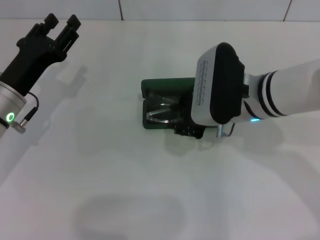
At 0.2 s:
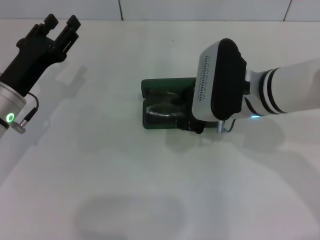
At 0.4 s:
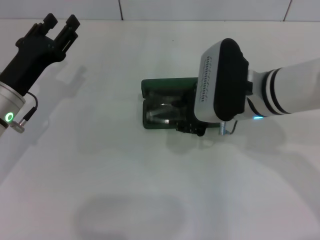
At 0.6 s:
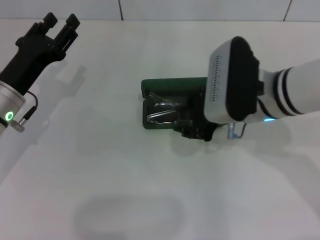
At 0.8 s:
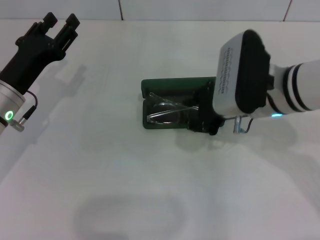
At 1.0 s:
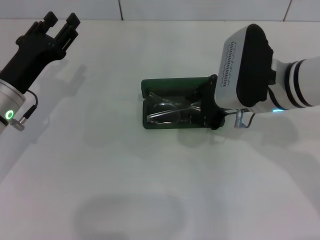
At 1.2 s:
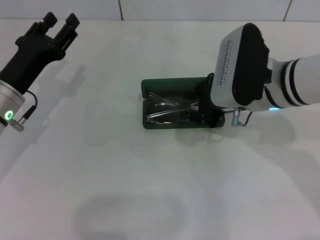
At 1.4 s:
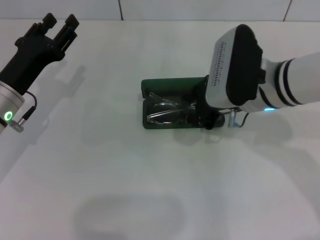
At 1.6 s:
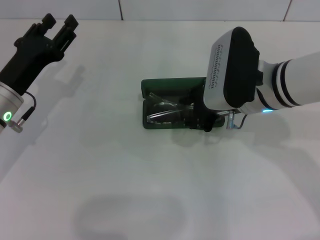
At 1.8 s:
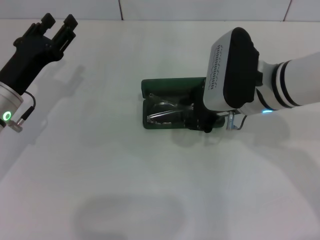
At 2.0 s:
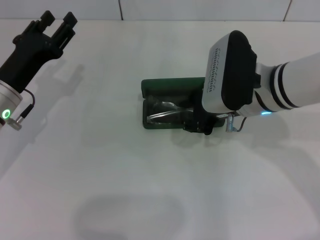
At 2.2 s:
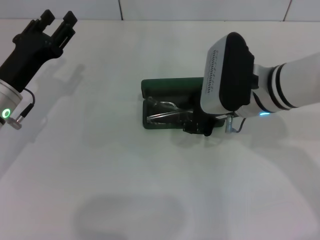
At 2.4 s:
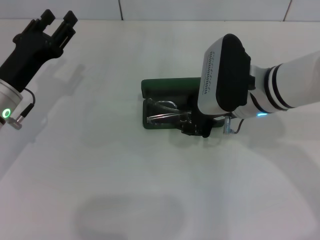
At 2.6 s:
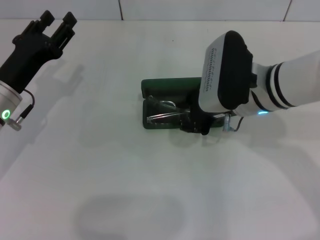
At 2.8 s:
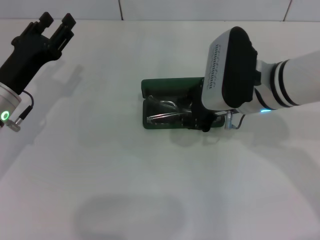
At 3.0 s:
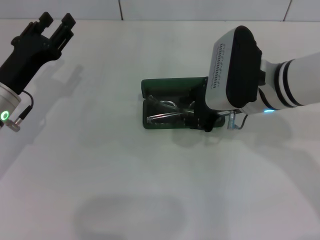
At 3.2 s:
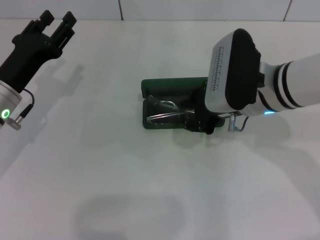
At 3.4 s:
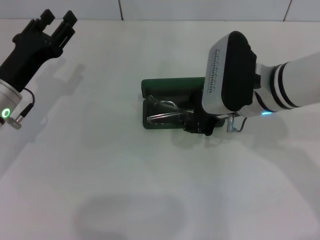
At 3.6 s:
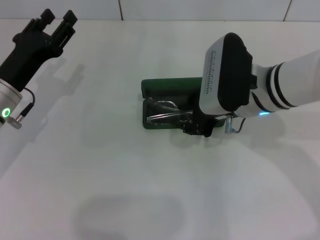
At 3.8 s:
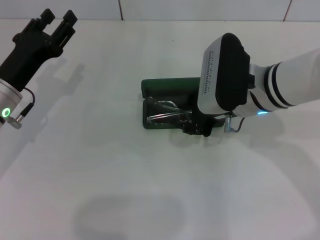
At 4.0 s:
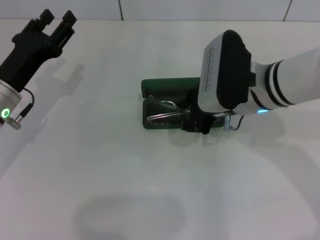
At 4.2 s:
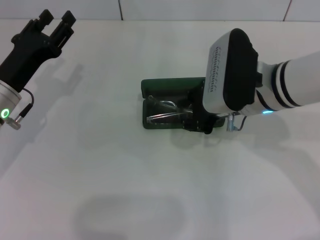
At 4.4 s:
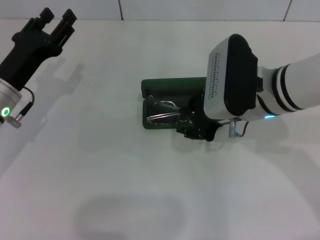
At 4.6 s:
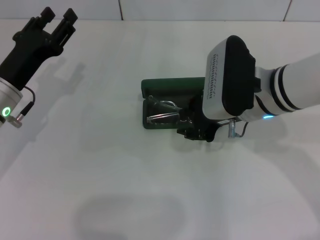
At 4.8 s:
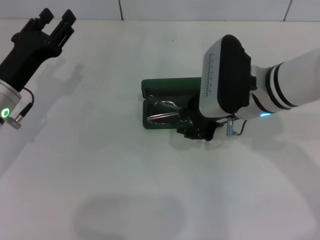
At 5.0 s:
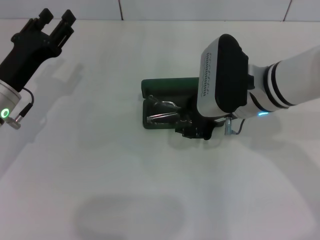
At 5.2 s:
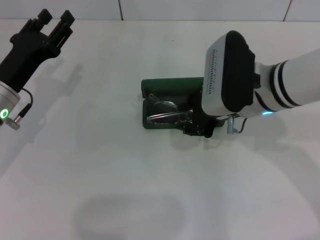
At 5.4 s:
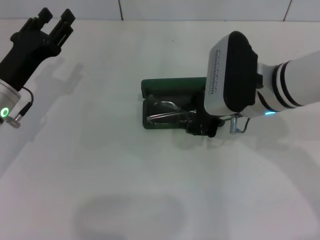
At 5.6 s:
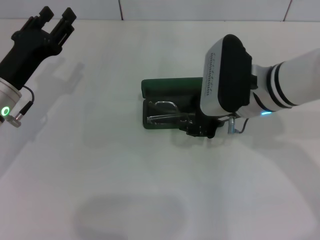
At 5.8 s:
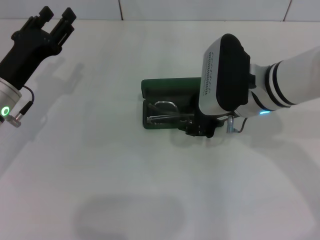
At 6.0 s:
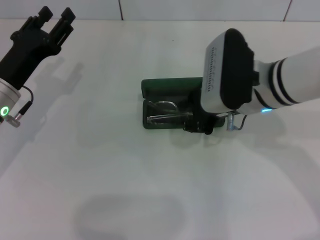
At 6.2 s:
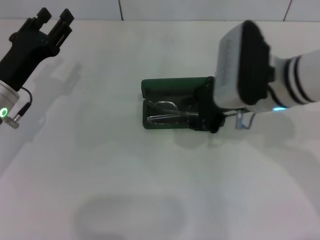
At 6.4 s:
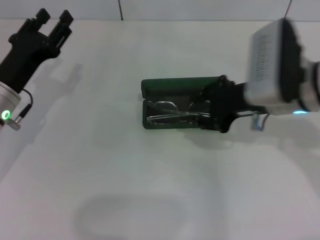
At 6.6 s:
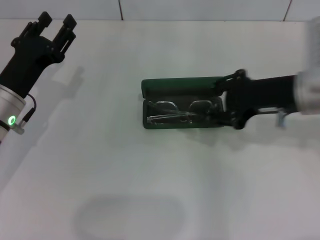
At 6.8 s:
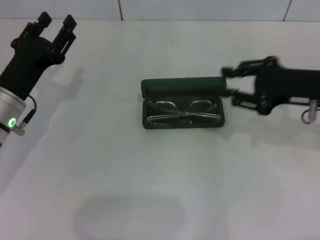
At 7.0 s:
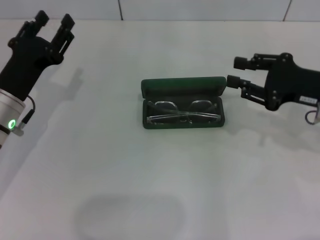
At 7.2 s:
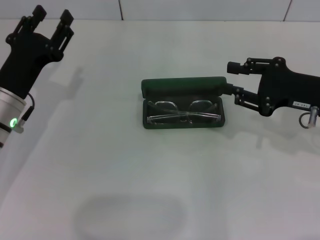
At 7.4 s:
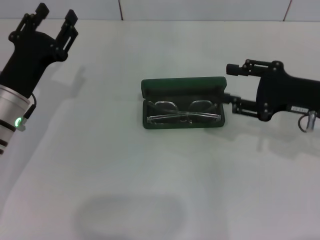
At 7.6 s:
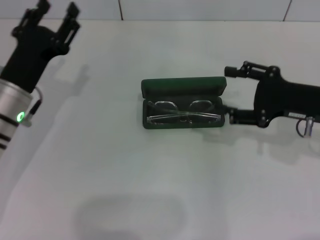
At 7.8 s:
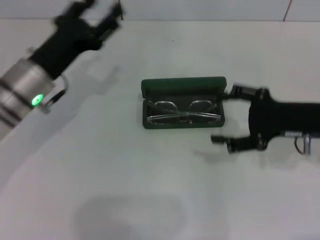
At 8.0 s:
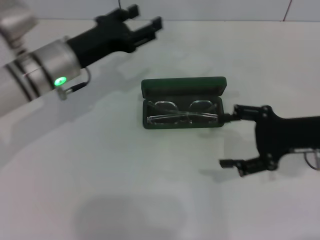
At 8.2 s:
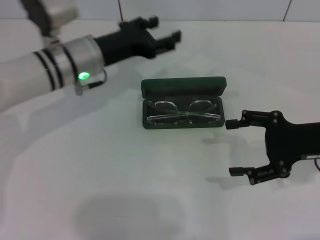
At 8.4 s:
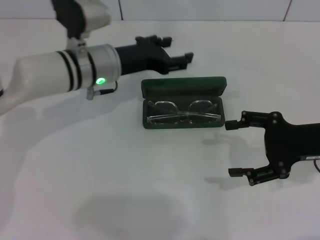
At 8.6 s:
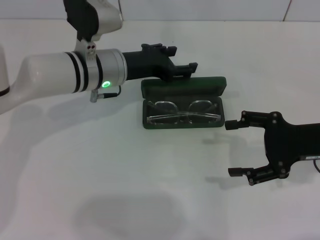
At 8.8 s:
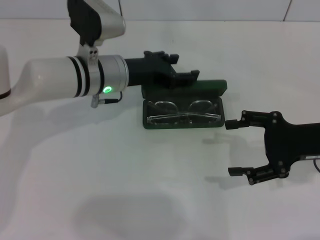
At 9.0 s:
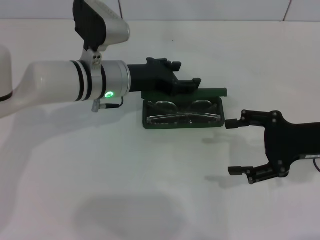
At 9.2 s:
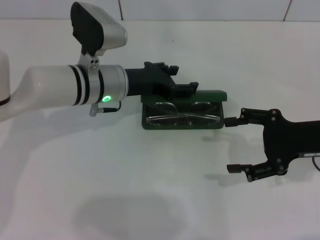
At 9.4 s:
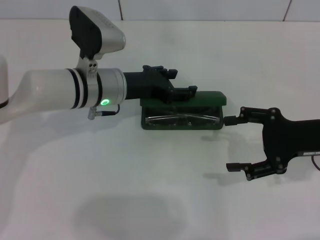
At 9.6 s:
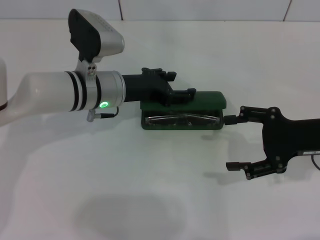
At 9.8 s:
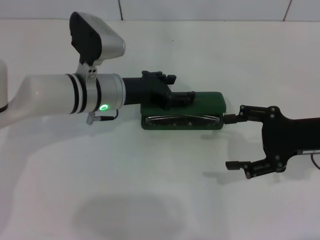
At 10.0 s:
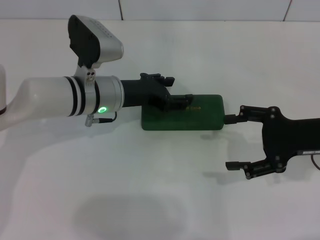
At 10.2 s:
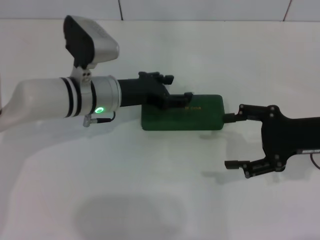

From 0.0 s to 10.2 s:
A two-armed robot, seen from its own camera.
Step, from 0.0 s to 5.8 s: Put the glasses into the case with your right hand.
Step, from 6.0 s to 9.8 s: Close the glasses case with your left hand.
From 0.0 s to 1.4 s: The grippers move only a little.
From 1.4 s to 4.4 s: The two grippers keep their place.
From 4.4 s to 5.8 s: Neither gripper changes place.
From 5.8 s to 7.2 s: The right gripper heads to the right, covering approximately 15 cm.
From 7.2 s to 8.8 s: The left gripper moves to the right and forward, approximately 15 cm; the right gripper opens up.
From 8.8 s to 10.2 s: There are only small adjustments of the grippers.

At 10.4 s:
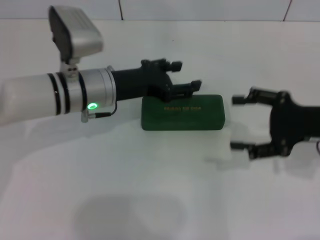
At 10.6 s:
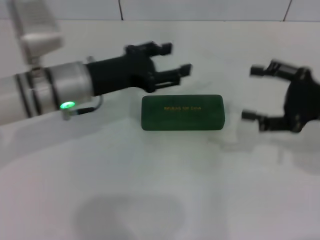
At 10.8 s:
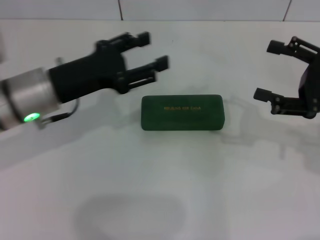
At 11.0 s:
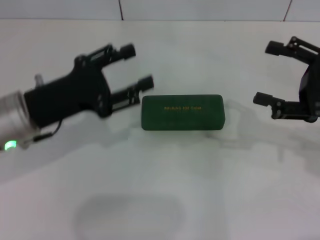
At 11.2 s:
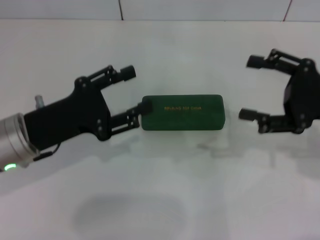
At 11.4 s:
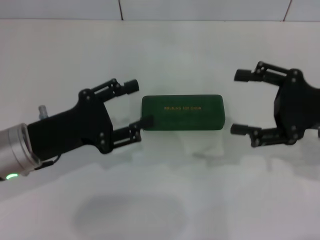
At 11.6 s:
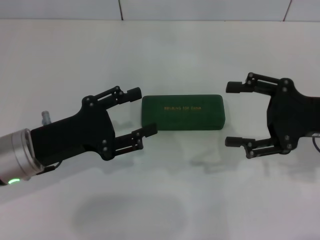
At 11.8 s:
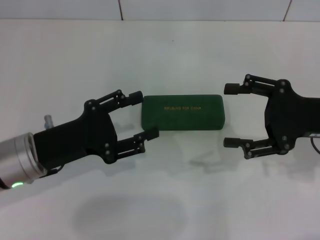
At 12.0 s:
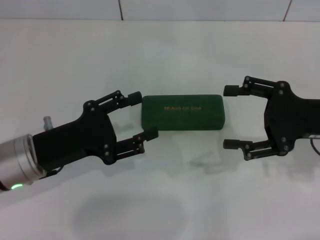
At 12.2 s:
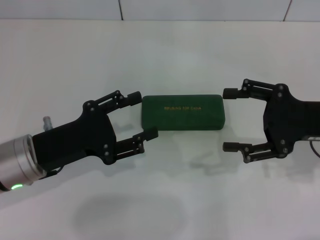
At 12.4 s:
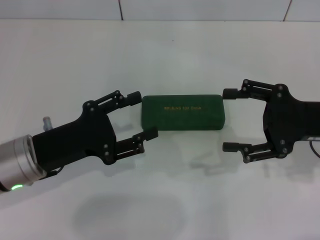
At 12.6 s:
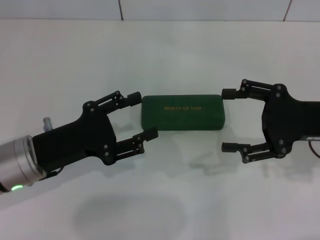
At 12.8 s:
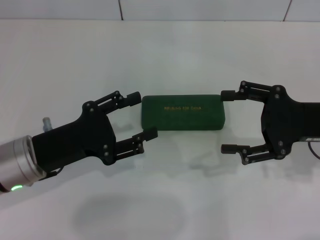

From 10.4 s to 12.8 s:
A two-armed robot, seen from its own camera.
From 10.4 s to 11.6 s: The left gripper is displaced backward and to the left by approximately 15 cm.
From 11.6 s to 12.8 s: The two grippers keep their place.

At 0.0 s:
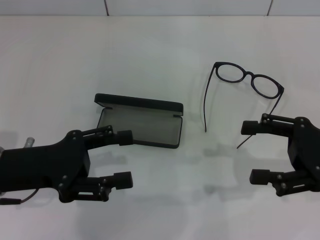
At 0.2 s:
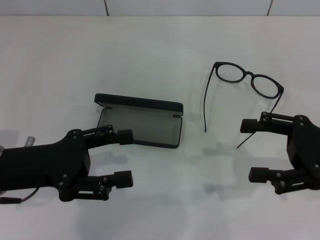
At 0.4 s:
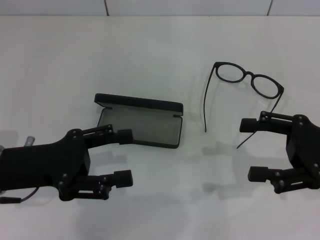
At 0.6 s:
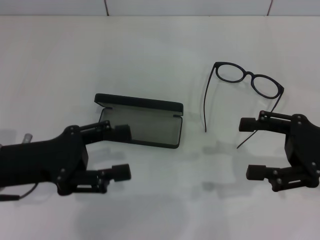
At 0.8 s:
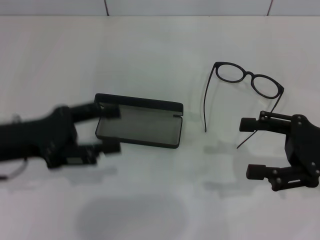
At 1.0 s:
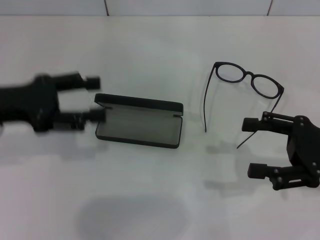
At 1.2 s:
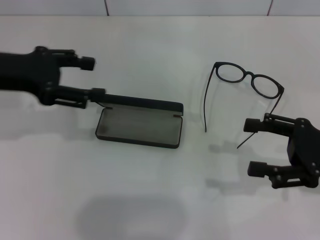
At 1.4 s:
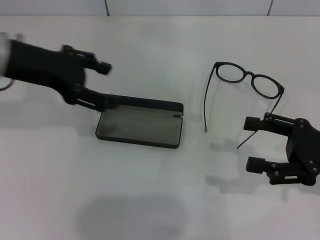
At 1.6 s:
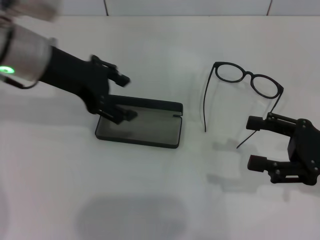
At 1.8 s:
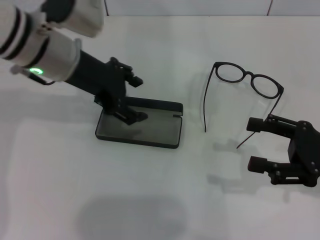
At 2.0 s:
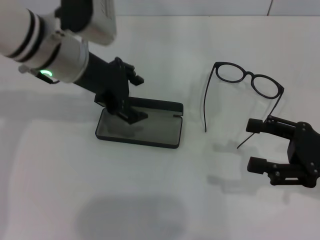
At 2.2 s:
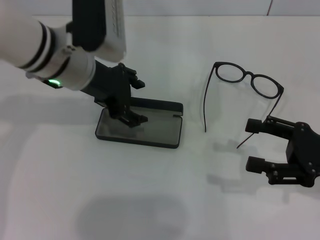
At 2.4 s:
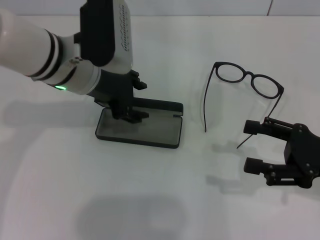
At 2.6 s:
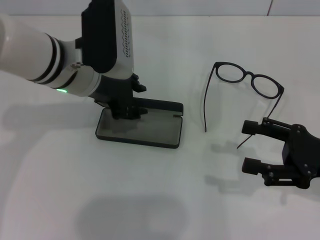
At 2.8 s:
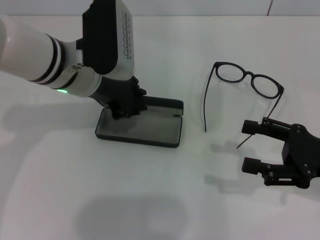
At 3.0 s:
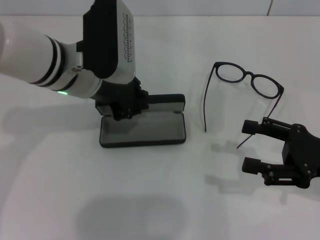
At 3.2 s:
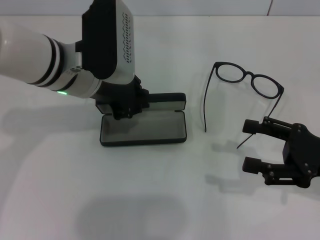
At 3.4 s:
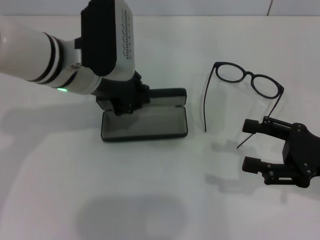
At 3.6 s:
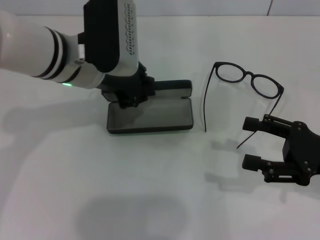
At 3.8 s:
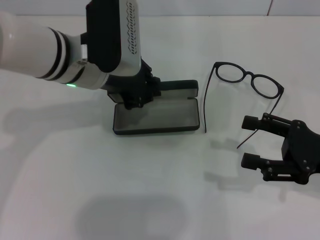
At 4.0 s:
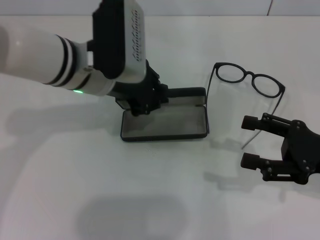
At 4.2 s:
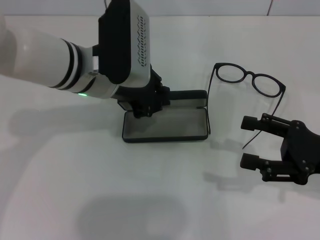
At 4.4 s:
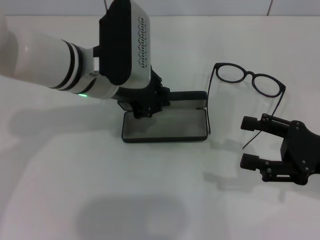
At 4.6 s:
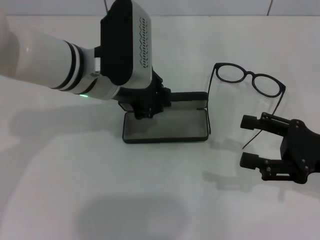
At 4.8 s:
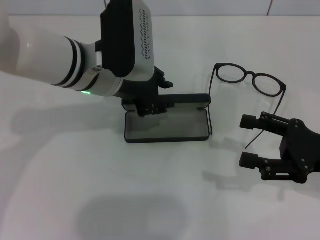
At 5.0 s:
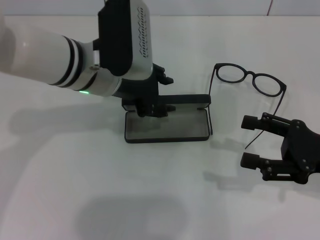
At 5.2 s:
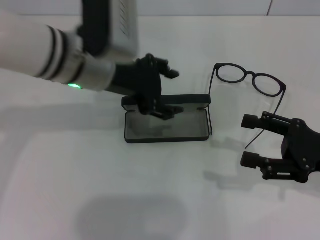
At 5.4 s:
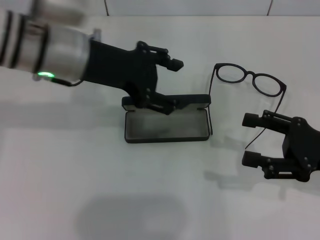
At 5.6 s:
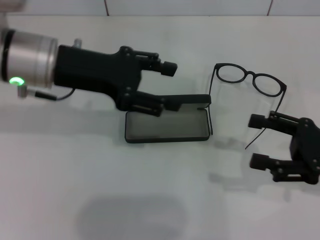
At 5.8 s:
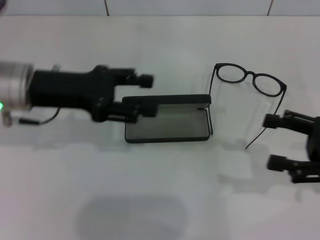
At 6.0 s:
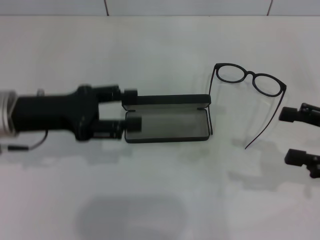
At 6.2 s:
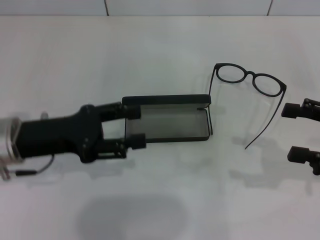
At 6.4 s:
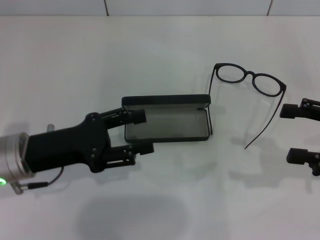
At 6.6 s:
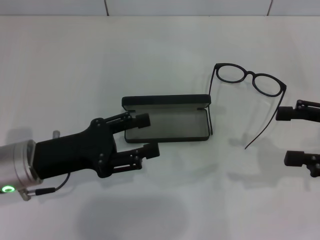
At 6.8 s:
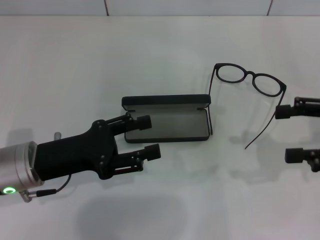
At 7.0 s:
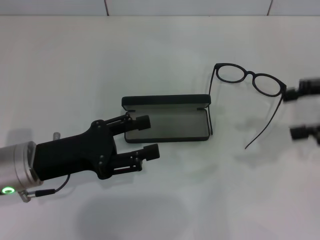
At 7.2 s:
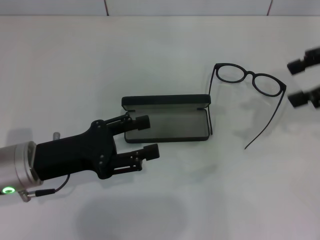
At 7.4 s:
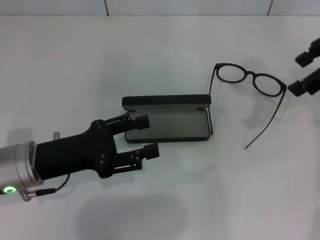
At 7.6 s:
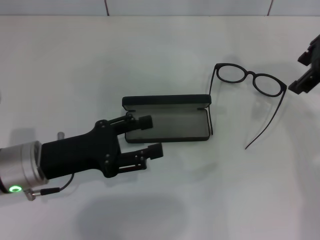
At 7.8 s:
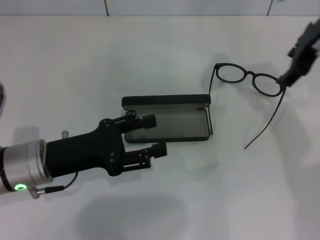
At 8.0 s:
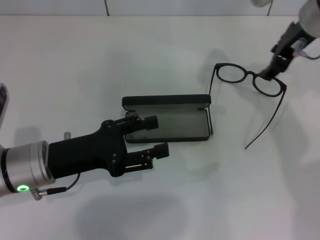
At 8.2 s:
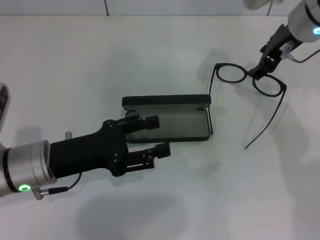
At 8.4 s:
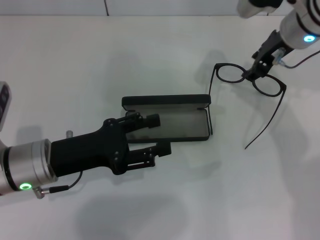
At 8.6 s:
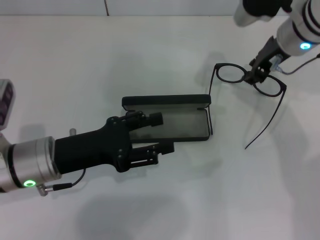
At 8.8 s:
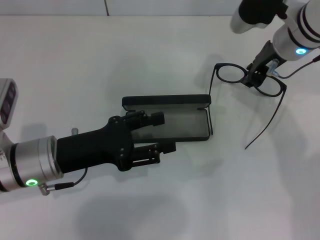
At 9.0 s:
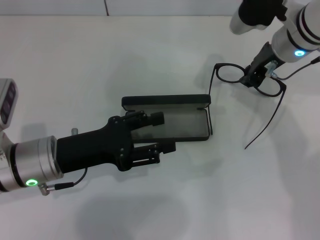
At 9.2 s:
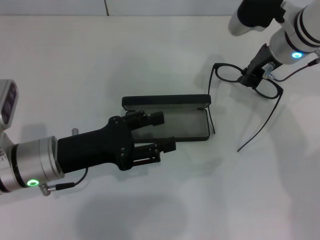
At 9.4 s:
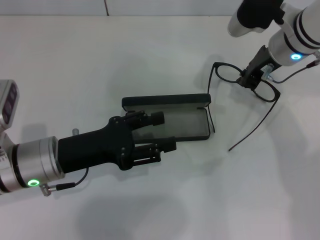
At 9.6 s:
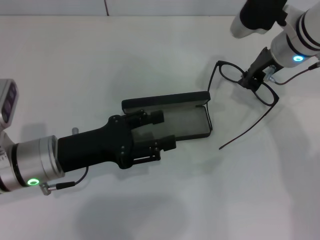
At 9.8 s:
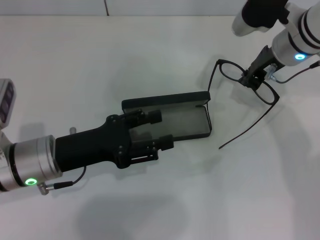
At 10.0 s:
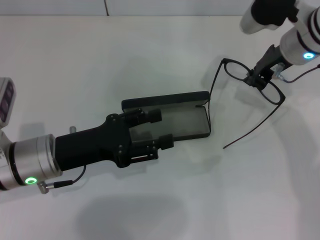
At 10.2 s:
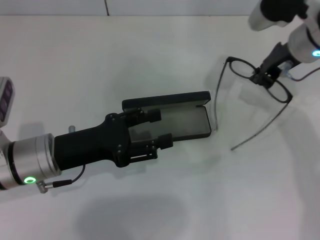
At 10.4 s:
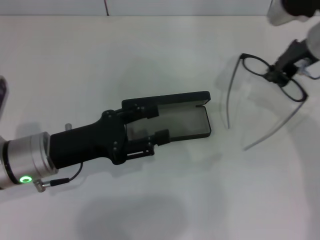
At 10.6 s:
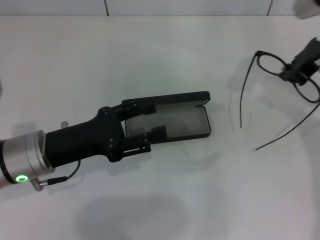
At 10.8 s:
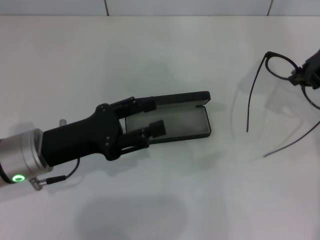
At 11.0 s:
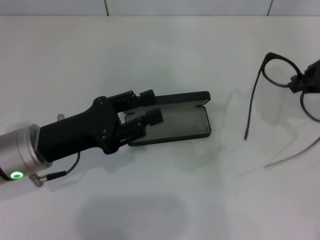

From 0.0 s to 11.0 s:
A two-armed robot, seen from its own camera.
Step, from 0.0 s to 2.8 s: Grab the glasses case with your left hand.
Step, from 3.0 s to 4.6 s: Place the glasses case in the center of the table with your left hand.
Step, from 5.0 s to 9.4 s: Grab the eyeglass frame with your right hand.
From 0.0 s to 1.6 s: The left gripper moves forward, upward and to the right, approximately 15 cm.
From 1.6 s to 3.2 s: The left gripper heads to the right, covering some 5 cm, and closes its fingers.
From 3.2 s to 4.8 s: The grippers make only small movements.
From 4.8 s to 6.2 s: The left gripper shifts roughly 15 cm to the left, backward and downward, and opens its fingers. Meanwhile the right gripper shifts by about 5 cm.
From 6.2 s to 7.8 s: The right gripper shifts approximately 25 cm to the left, forward and upward.
From 7.8 s to 9.4 s: The right gripper goes roughly 10 cm downward, and closes up.
From 9.4 s to 11.0 s: The right gripper goes roughly 15 cm to the right, upward and backward.
